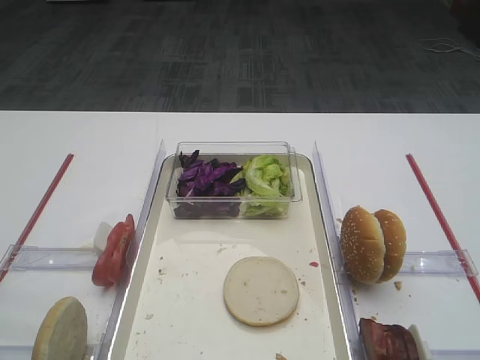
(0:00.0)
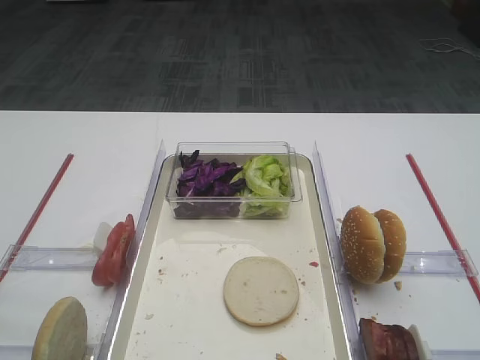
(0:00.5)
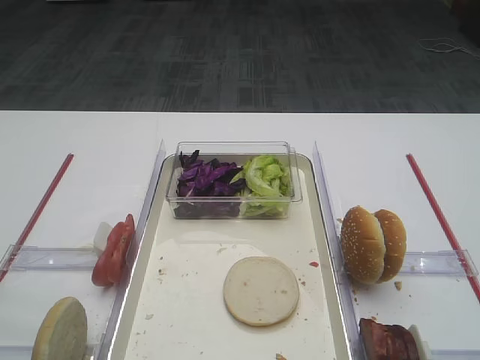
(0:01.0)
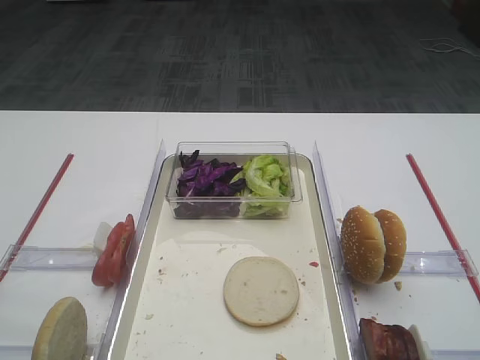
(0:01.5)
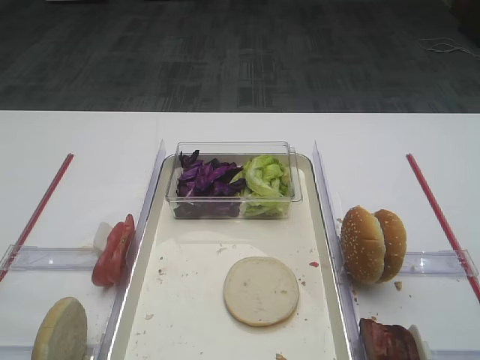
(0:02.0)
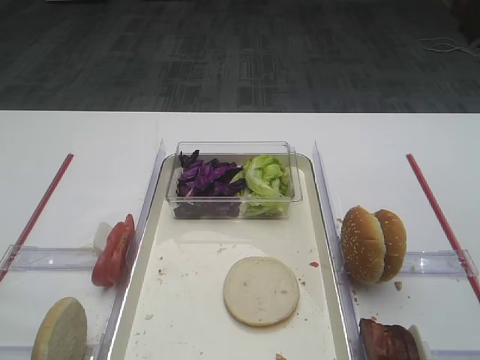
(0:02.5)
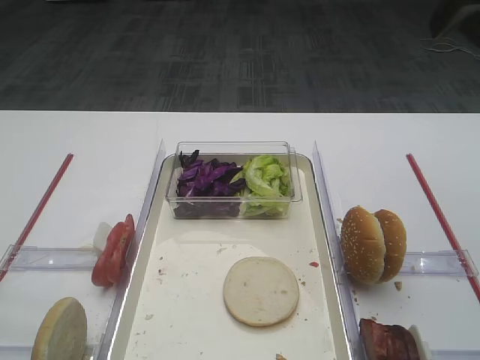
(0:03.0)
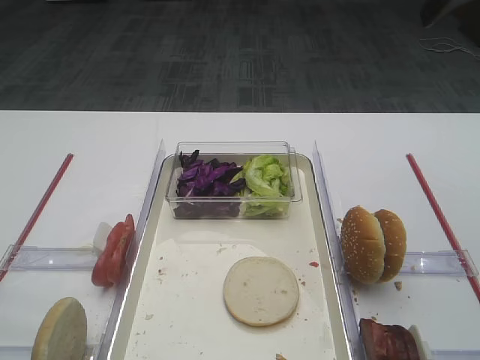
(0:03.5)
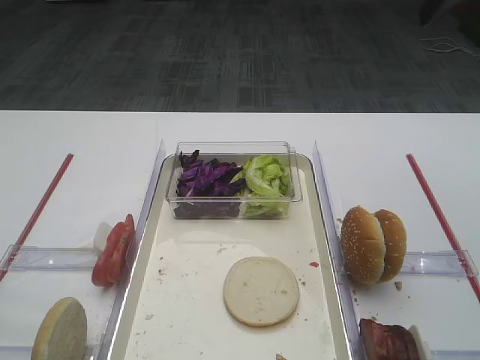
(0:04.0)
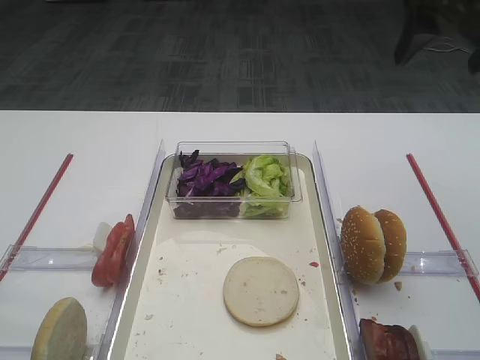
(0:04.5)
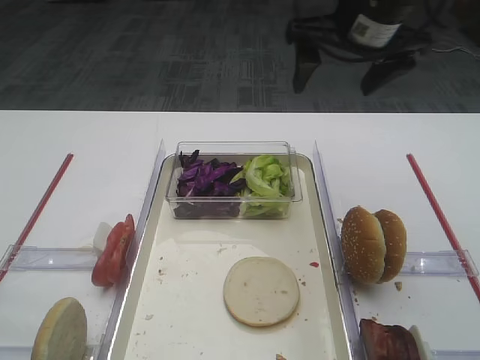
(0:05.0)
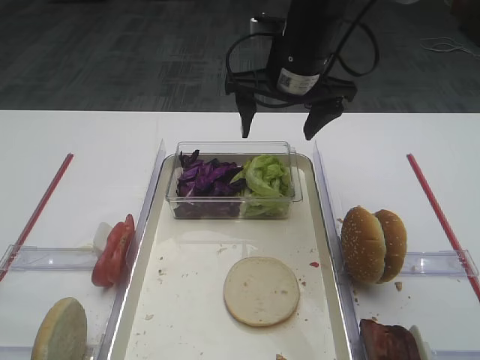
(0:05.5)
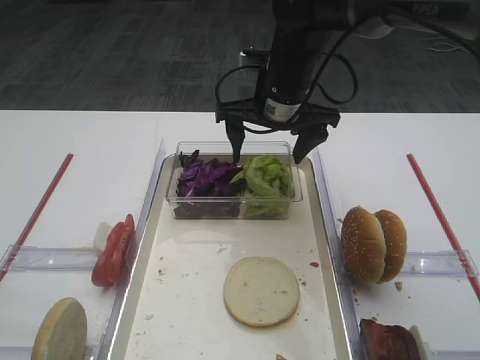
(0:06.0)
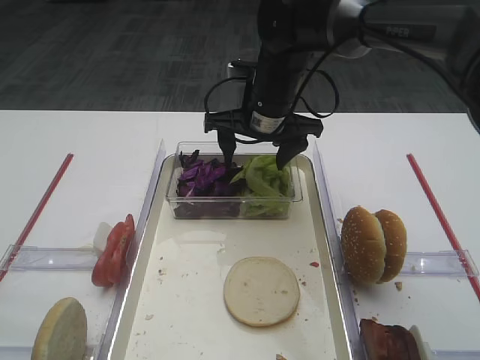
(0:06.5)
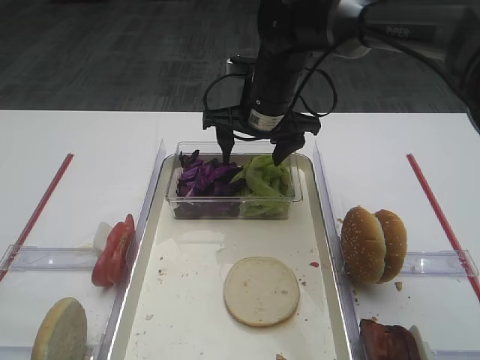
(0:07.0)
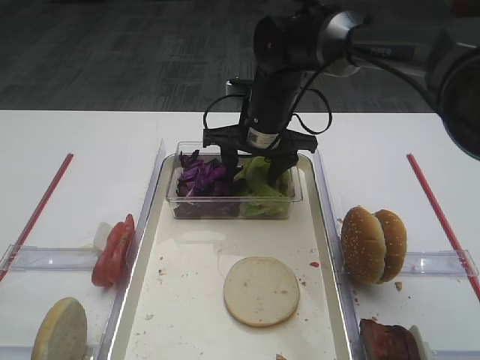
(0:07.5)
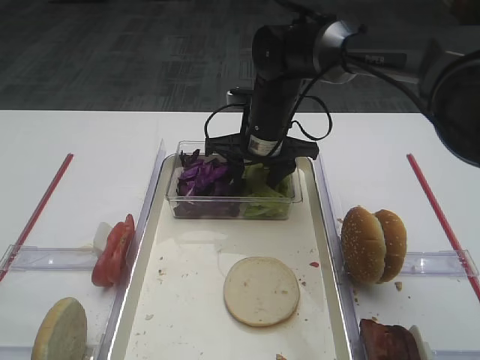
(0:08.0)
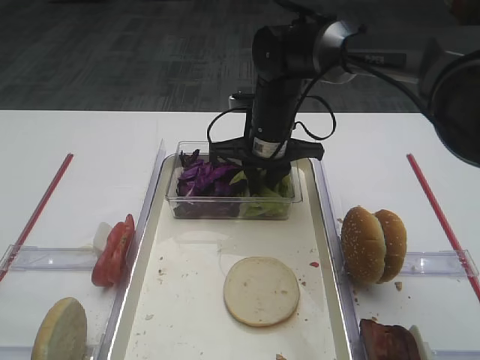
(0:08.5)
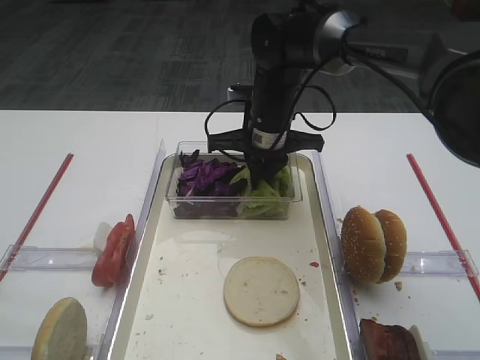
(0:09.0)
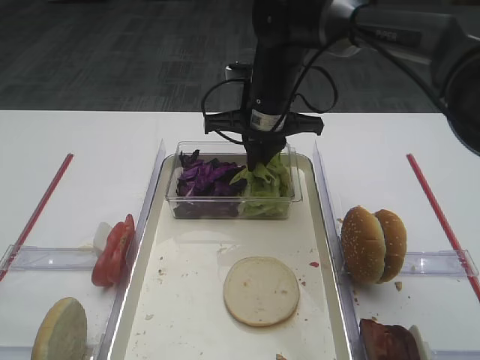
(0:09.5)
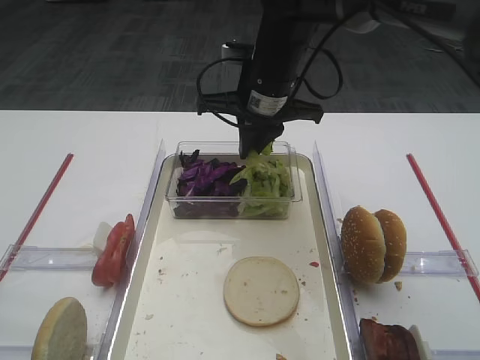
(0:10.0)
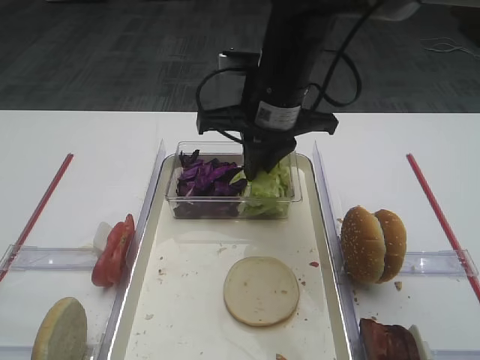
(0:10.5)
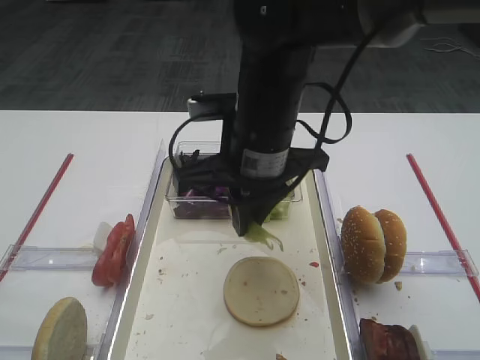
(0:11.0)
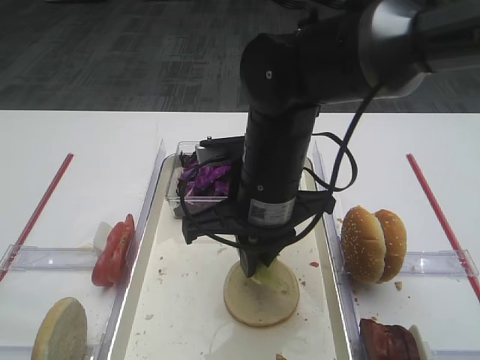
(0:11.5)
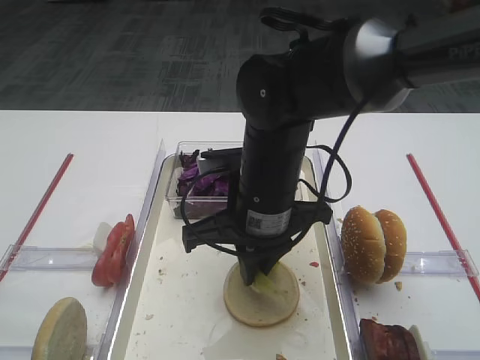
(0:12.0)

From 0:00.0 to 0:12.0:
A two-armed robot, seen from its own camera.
Step, from 0:00.0 to 0:09.5: Pick up the lettuce leaf with the right gripper.
From 0:04.0 to 0:06.0: The right gripper travels to the left and downward by about 25 cm.
From 0:06.0 to 0:08.0: The right gripper moves downward, some 5 cm, and closes its fingers.
From 0:08.0 to 0:10.0: The right gripper travels upward by about 5 cm, and closes its fingers.
From 0:10.0 to 0:12.0: The right gripper shifts roughly 15 cm backward.

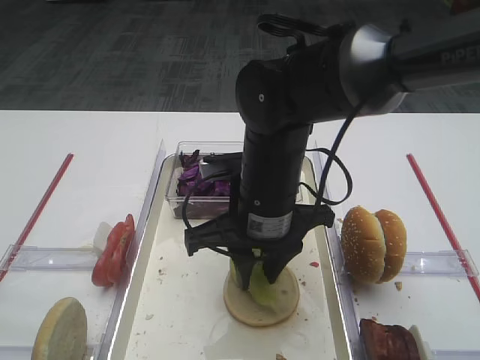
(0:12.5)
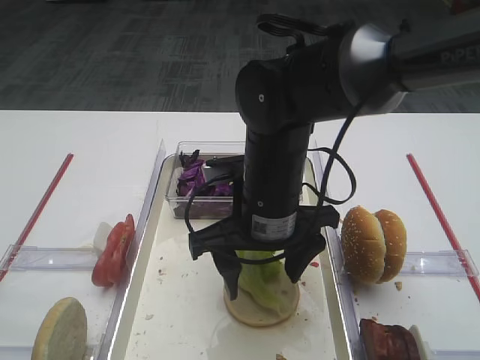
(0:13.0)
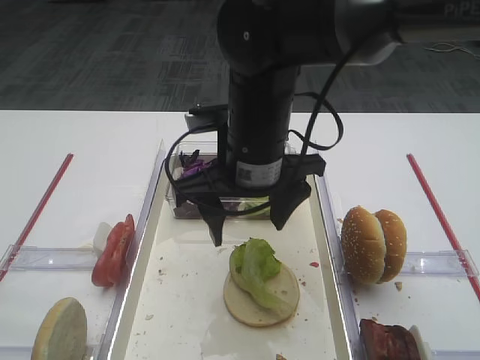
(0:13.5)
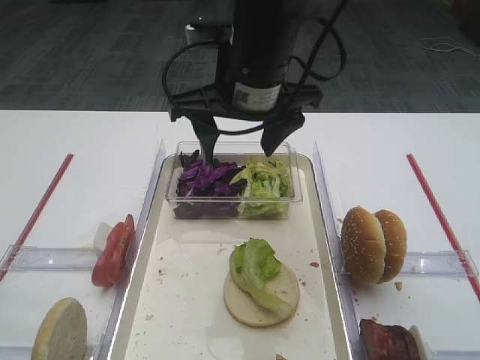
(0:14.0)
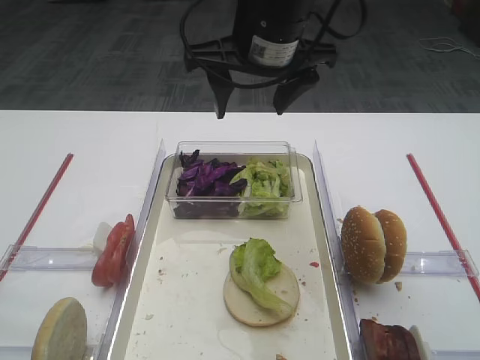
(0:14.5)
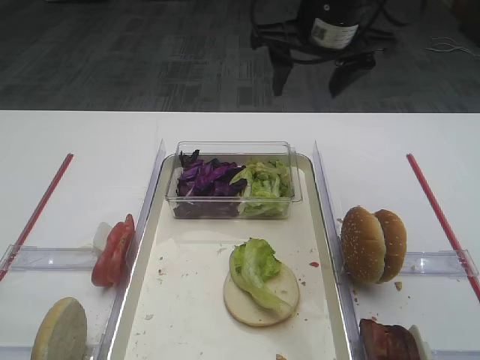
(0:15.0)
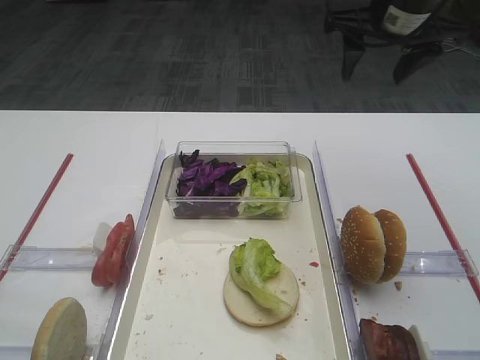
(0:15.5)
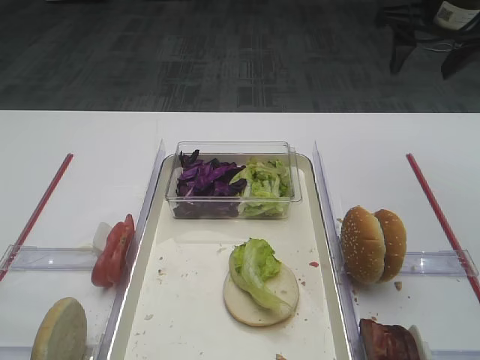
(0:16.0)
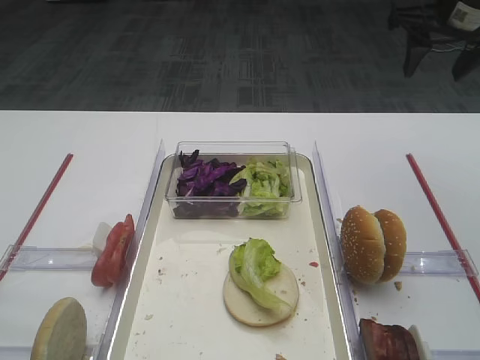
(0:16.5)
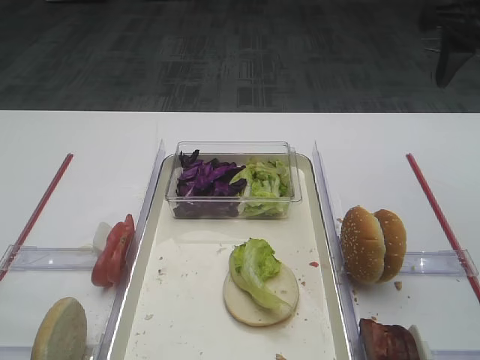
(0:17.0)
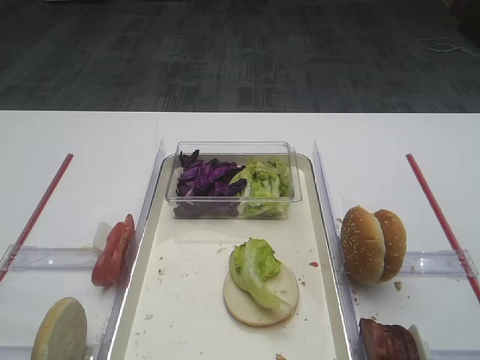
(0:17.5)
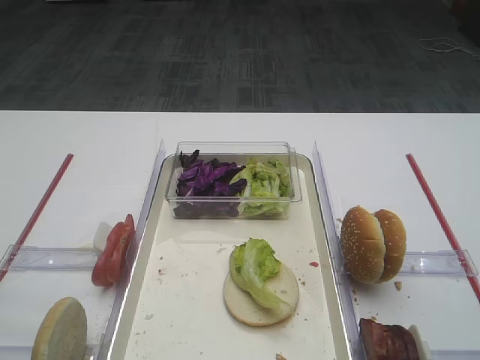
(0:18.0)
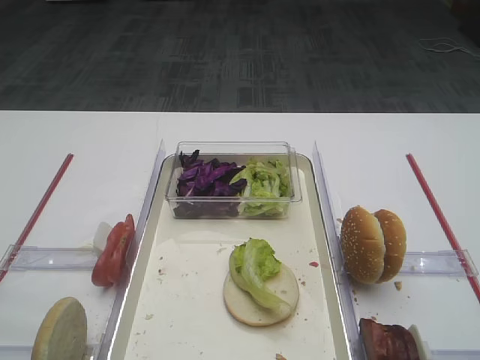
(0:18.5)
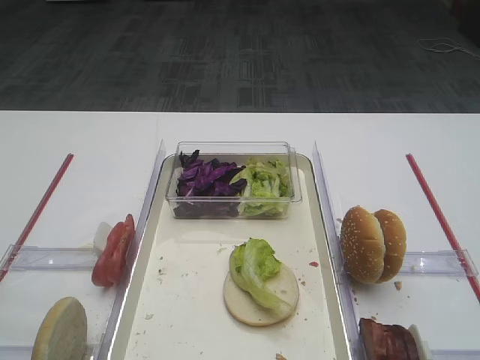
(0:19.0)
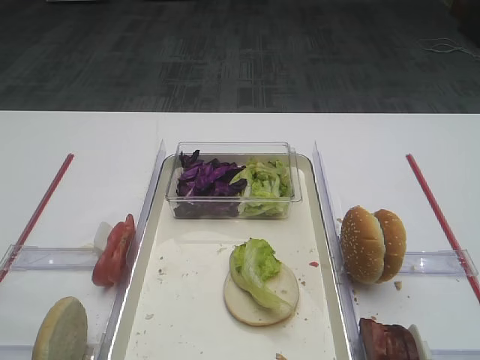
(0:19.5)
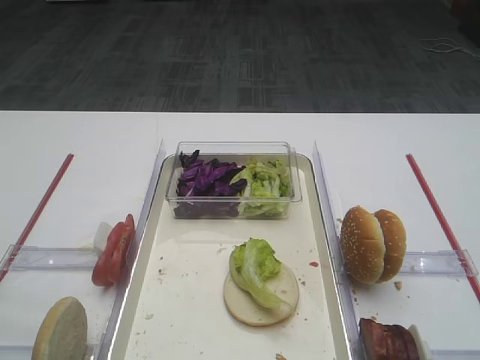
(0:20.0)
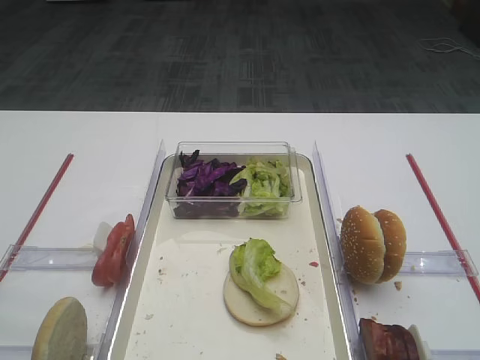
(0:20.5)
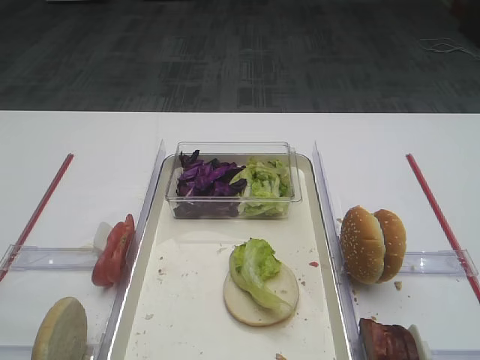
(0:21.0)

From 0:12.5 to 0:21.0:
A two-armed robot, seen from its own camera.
From 0:12.5 to 0:14.5: The right gripper shifts approximately 15 cm upward and forward, and opens its fingers.
From 0:14.5 to 0:16.5: The right gripper goes approximately 20 cm to the right.
From 0:16.5 to 0:19.0: The right gripper travels backward by roughly 40 cm.

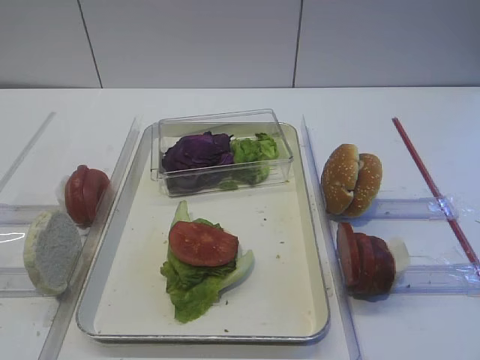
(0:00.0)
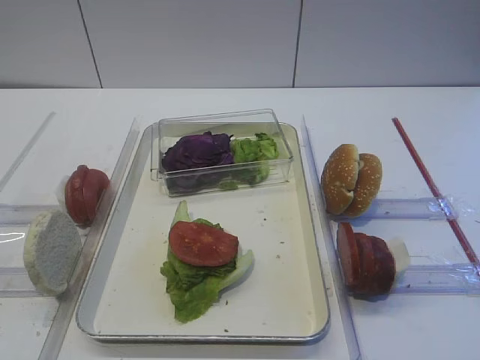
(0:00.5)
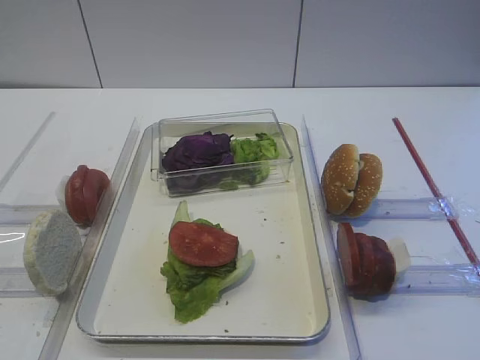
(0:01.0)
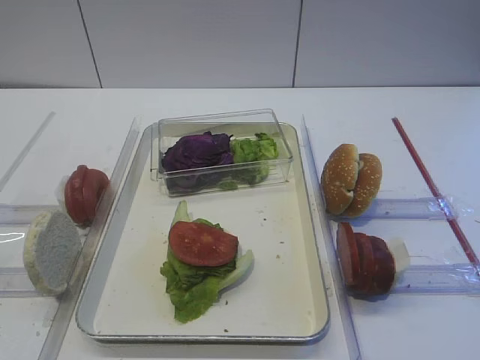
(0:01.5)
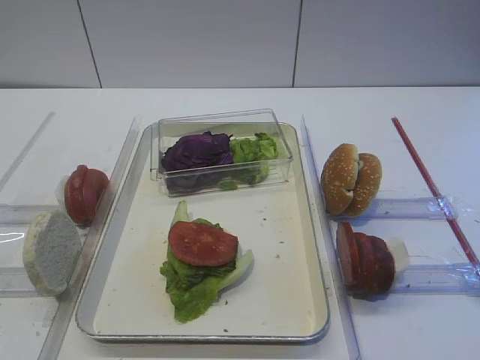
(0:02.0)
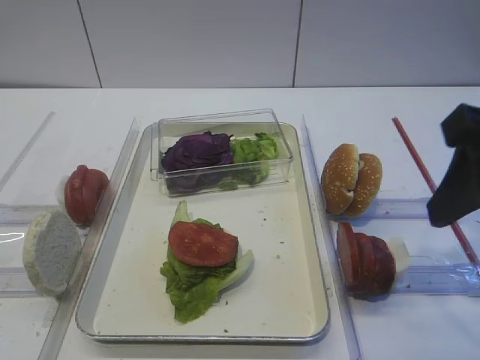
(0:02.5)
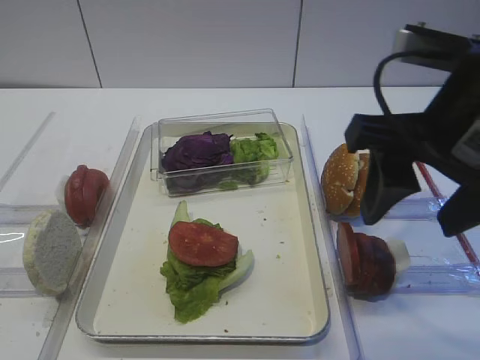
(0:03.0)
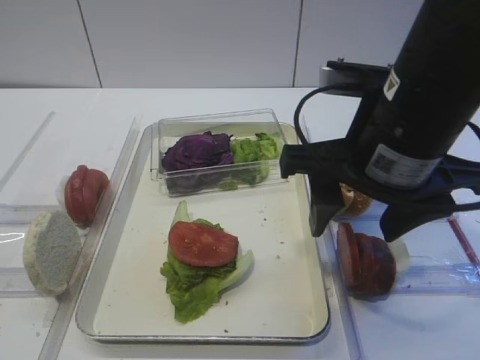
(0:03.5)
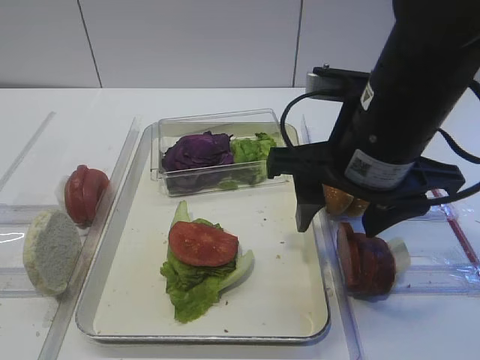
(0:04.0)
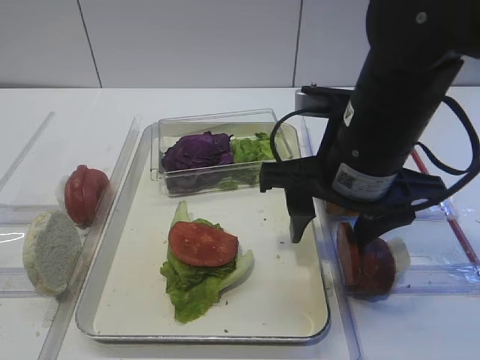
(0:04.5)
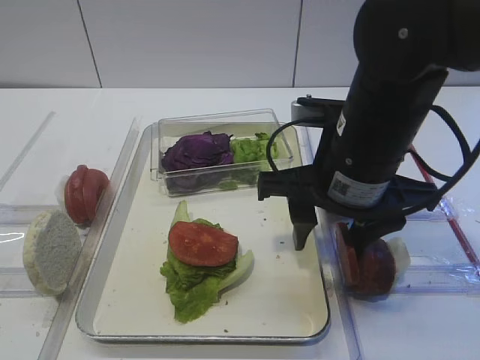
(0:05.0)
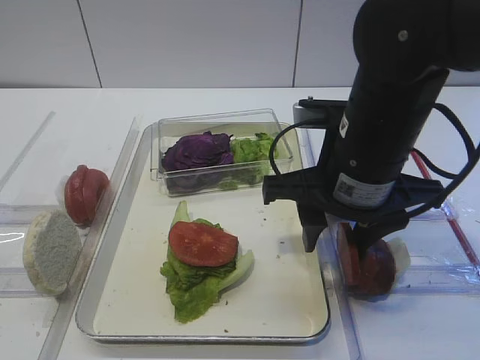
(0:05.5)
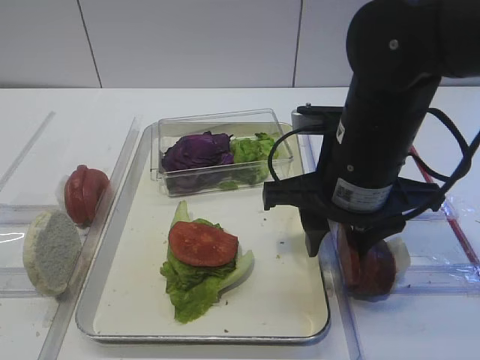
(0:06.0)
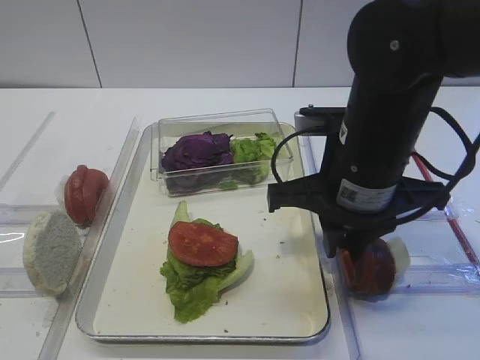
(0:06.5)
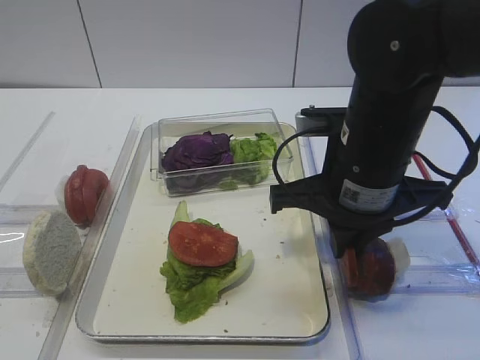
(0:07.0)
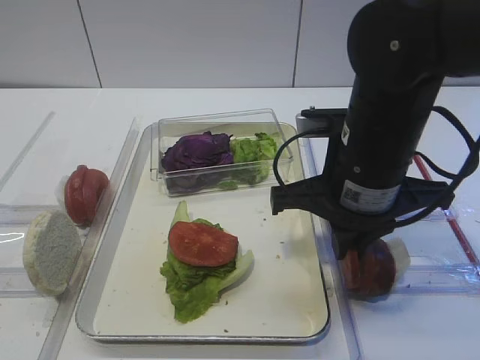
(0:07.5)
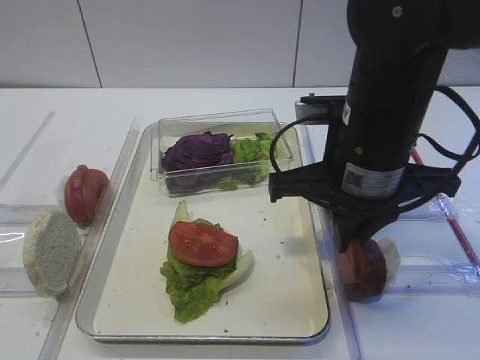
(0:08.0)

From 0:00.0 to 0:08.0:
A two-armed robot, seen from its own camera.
From 0:02.0 to 0:04.0: The right gripper moves to the left, forward and downward, roughly 20 cm.
From 0:04.0 to 0:06.0: There are only small adjustments of the grippers.
From 0:06.0 to 0:08.0: The right gripper closes.
